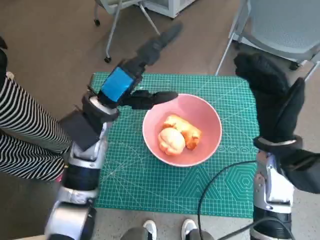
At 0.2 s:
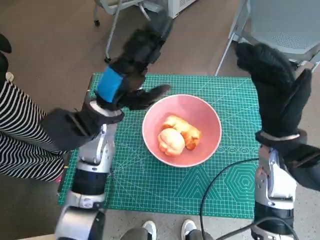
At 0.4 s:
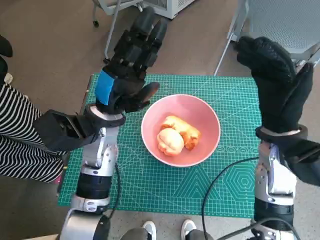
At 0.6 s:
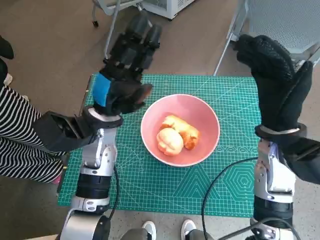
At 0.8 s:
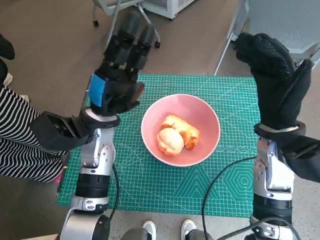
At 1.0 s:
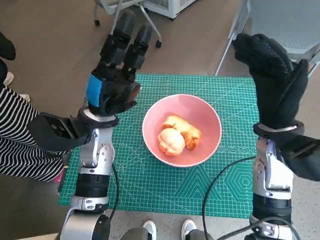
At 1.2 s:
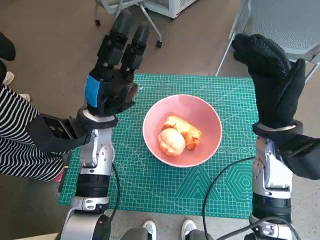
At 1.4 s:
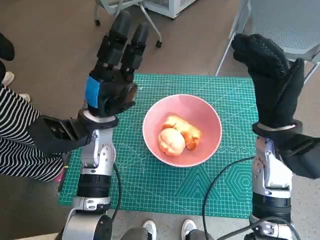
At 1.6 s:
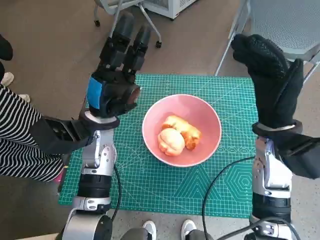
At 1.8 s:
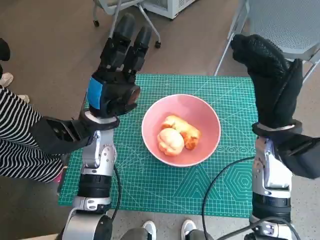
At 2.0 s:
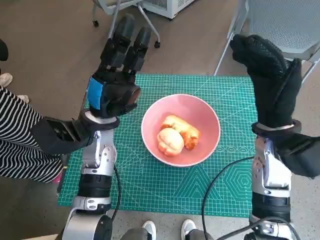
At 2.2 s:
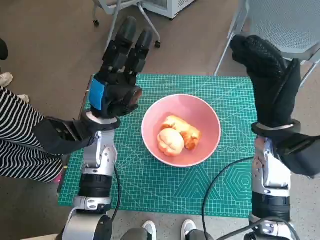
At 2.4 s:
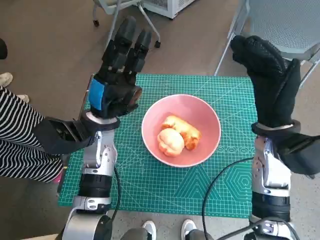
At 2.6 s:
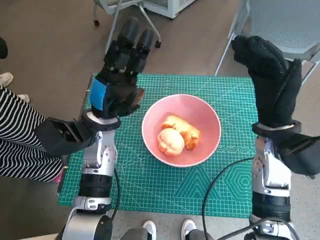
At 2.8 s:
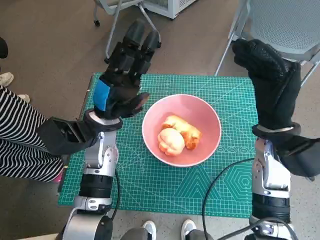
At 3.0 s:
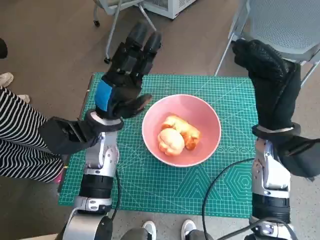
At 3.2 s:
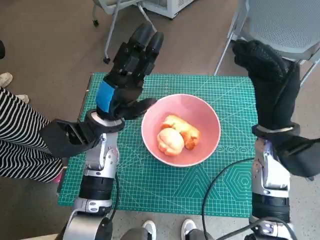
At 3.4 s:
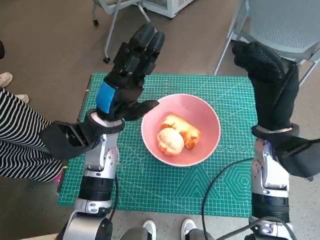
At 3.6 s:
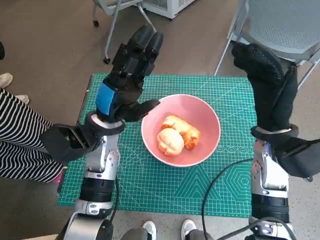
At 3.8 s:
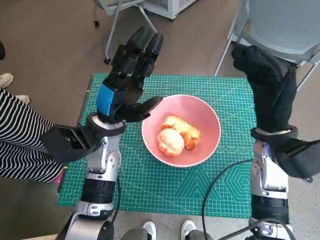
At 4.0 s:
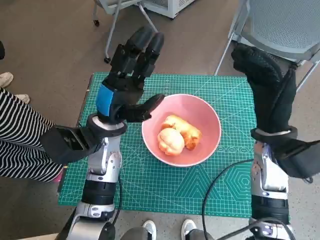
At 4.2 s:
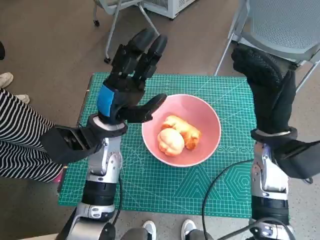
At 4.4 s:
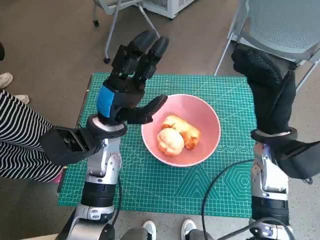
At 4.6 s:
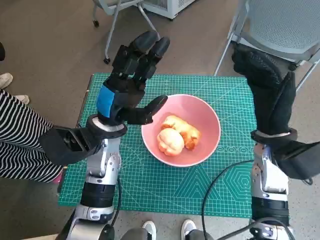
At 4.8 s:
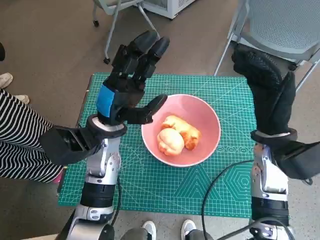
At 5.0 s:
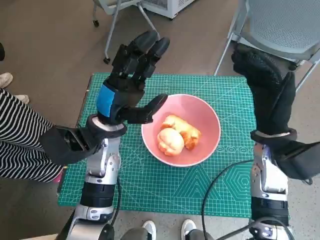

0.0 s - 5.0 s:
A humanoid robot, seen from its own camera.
Task of the whole recording: Push the bowl into the center of the table and put the bread into the bowl.
1.6 s - 3.4 s: The hands move only a little.
3.4 s - 5.0 s: The two hands keep their place.

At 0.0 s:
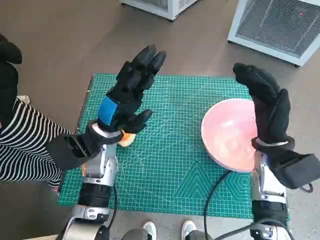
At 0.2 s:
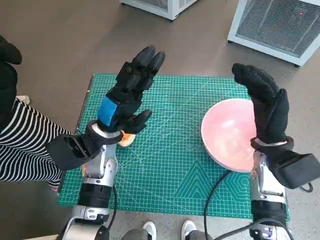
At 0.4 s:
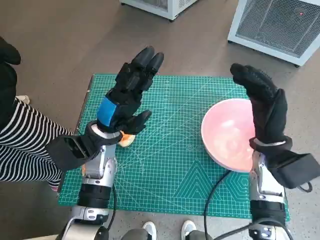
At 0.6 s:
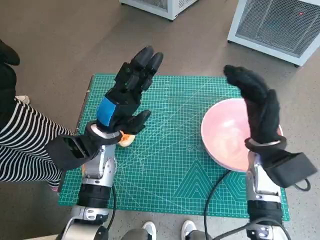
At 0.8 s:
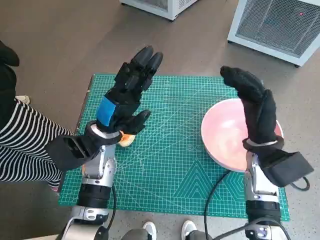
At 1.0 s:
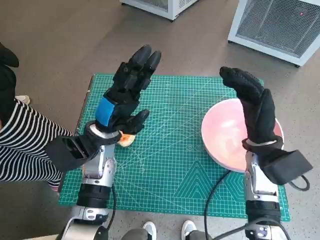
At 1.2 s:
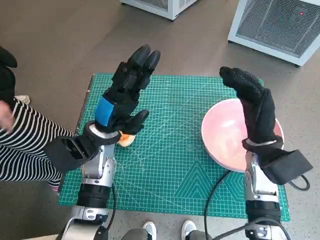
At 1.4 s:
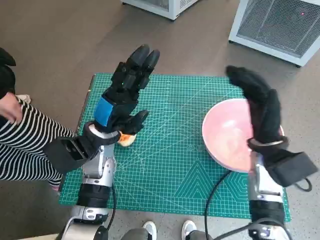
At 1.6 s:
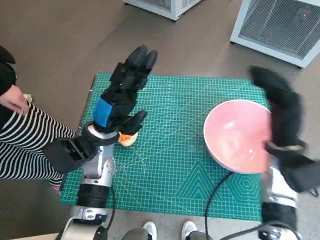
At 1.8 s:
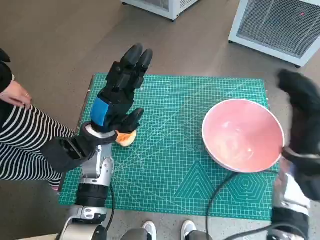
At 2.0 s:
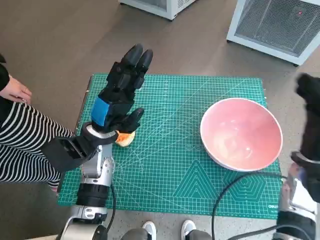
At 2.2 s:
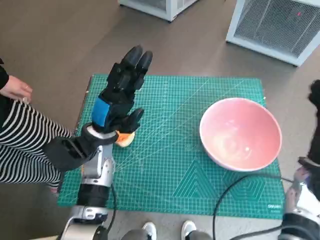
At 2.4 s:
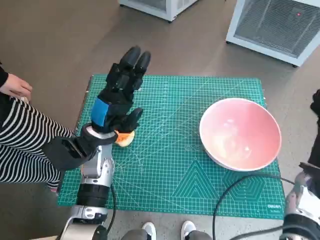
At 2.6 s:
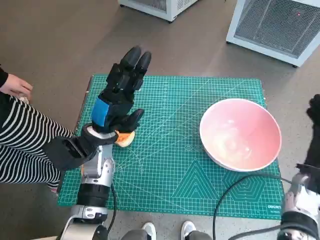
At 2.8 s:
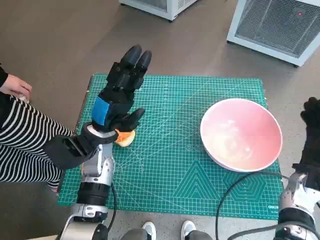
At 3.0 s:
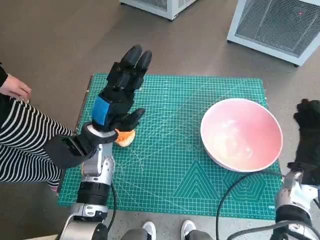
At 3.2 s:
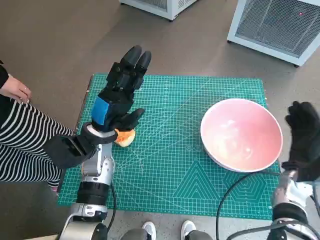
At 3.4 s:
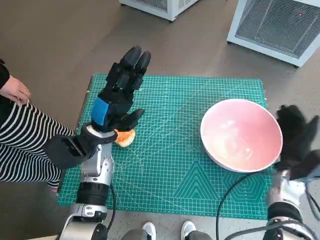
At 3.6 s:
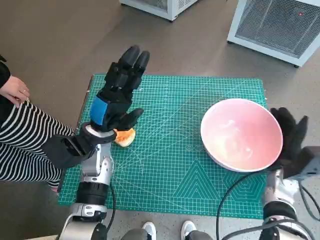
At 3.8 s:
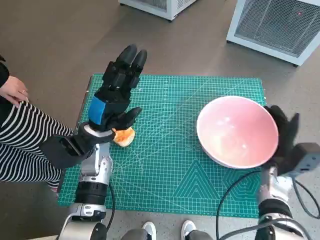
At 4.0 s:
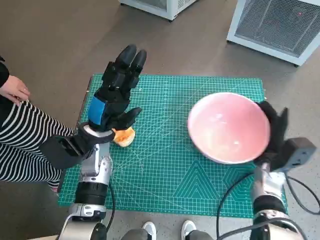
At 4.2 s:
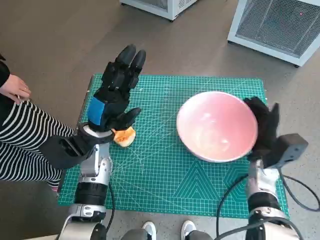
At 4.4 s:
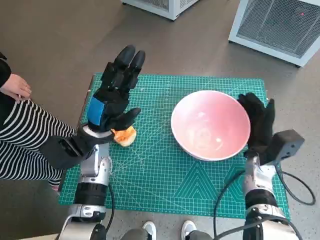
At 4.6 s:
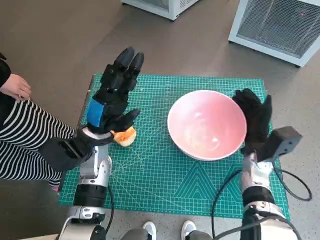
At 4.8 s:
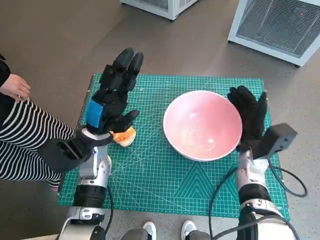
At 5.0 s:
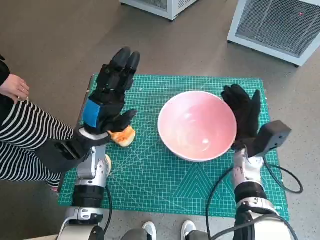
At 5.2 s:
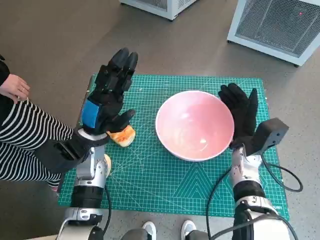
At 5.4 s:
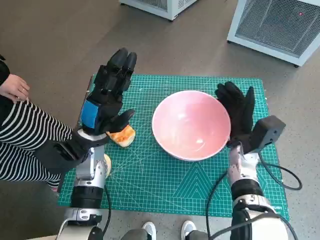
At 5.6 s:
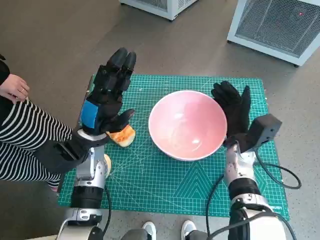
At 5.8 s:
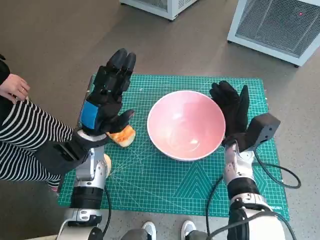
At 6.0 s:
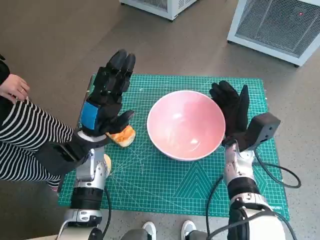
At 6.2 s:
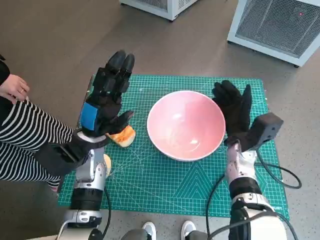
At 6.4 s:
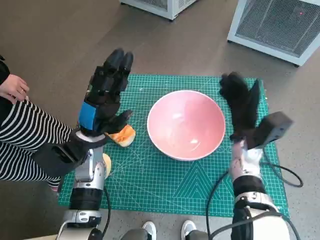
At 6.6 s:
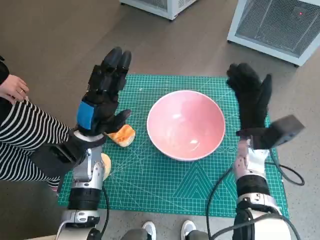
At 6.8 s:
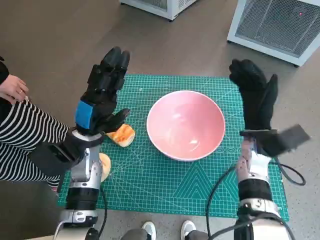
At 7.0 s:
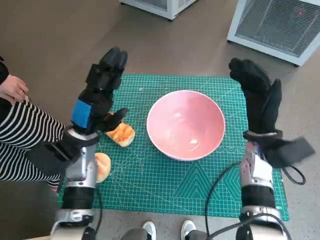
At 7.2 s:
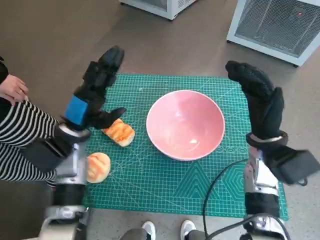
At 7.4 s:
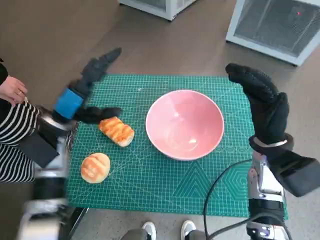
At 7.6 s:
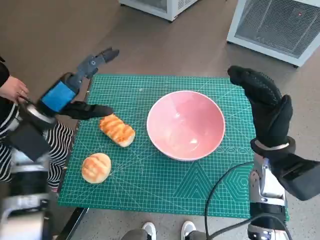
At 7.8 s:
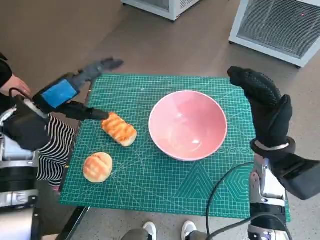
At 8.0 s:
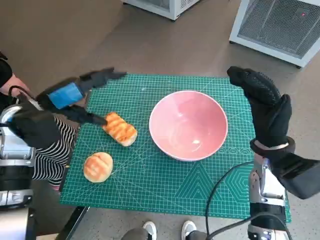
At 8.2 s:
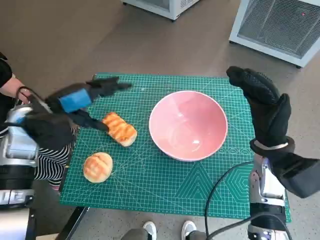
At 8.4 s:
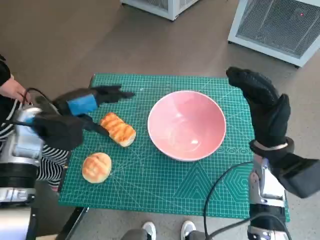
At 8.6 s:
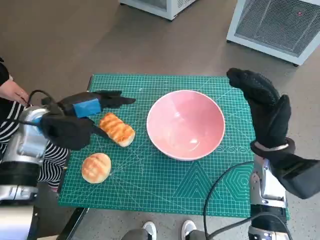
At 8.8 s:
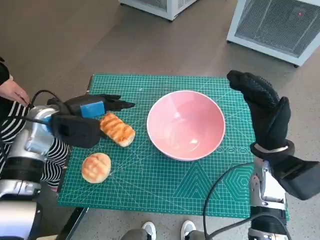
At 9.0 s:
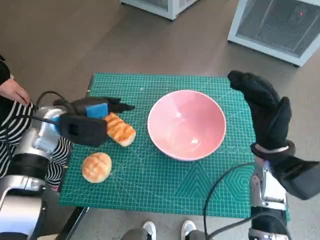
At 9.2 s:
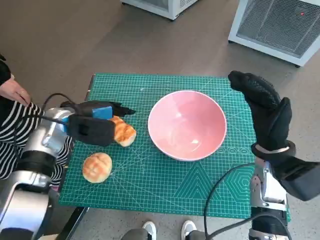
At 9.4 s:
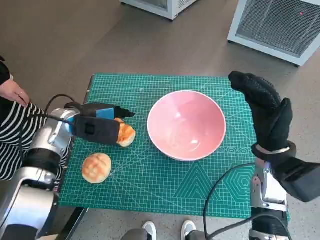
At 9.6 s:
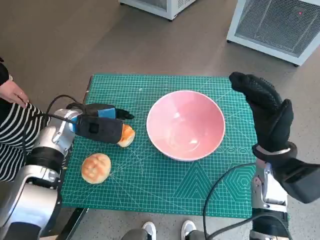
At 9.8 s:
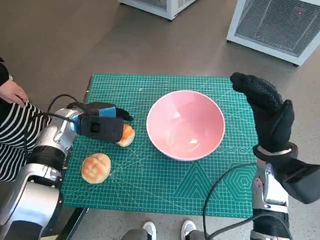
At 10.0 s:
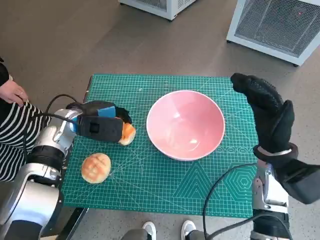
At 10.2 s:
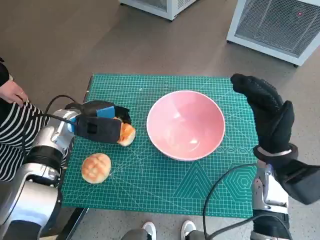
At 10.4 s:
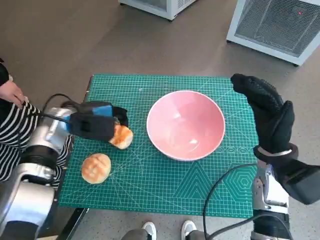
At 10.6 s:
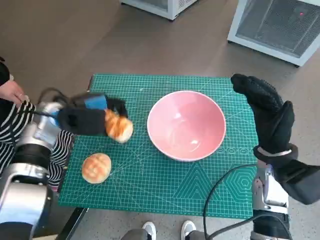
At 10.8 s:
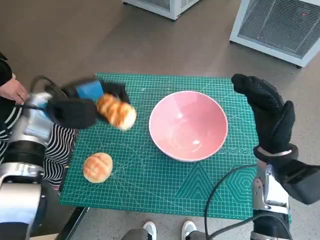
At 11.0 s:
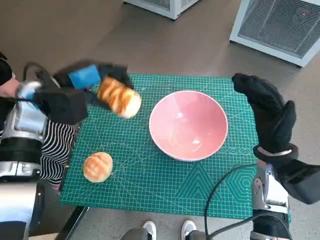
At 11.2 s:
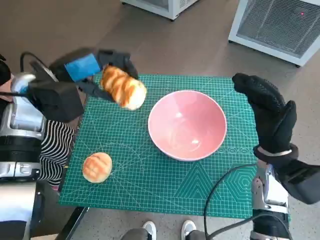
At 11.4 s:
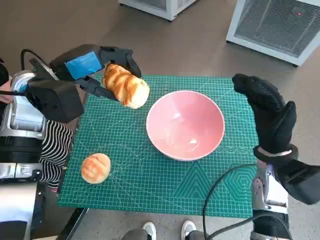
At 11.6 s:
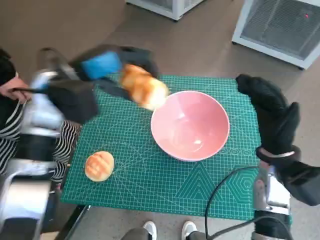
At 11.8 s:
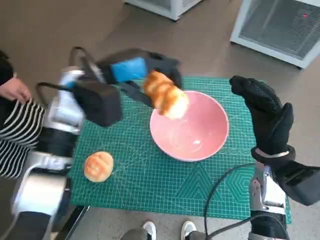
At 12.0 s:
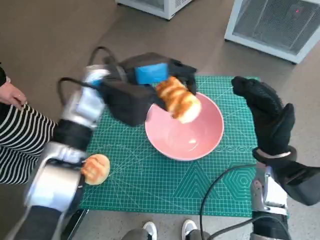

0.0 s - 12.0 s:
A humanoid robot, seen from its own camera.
Task of the whole recording: Push the bowl into the center of the table and put the bread into the bowl.
Step, 0.0 s - 6.2 s: Move the pink bowl to the center of table with right hand.
Step, 6.4 s - 10.0 s: Grasp the long bread with left hand.
1.6 s - 3.0 s: The right hand heads to the right and downward, covering roughly 10 cm.
3.0 s - 4.4 s: The right hand shifts approximately 10 cm to the left.
4.4 s - 6.0 s: The right hand is displaced to the left by some 5 cm.
6.0 s - 7.6 s: The right hand shifts roughly 10 cm upward. Meanwhile the left hand travels to the left and upward by about 10 cm.
9.0 s - 10.4 s: The hands make only small movements.
10.4 s - 12.0 s: The left hand heads upward and to the right, covering some 15 cm.

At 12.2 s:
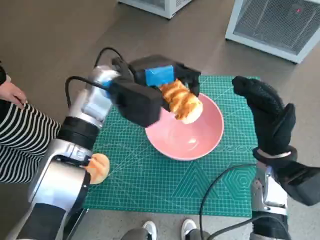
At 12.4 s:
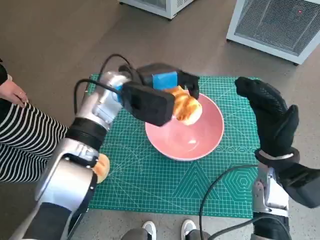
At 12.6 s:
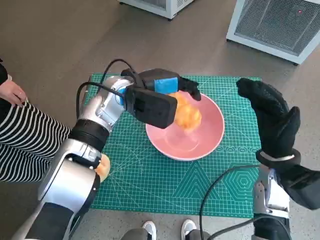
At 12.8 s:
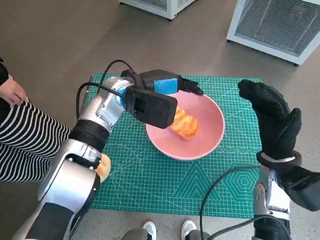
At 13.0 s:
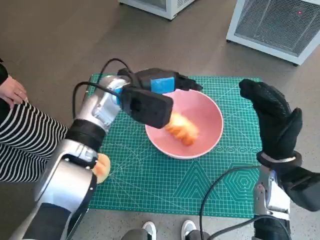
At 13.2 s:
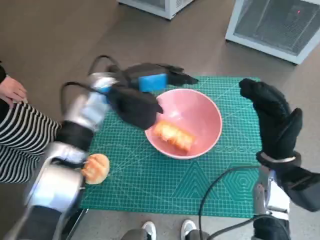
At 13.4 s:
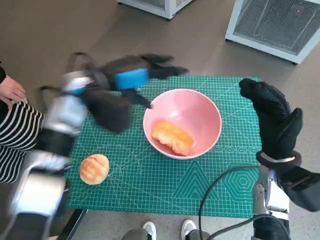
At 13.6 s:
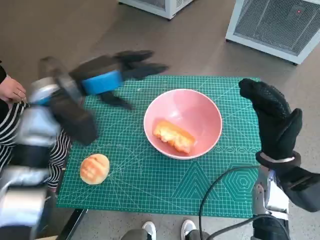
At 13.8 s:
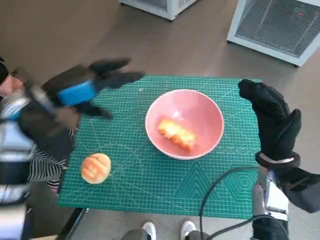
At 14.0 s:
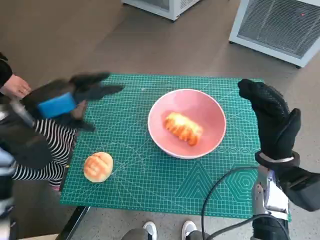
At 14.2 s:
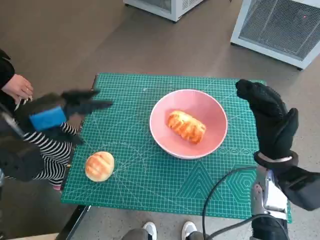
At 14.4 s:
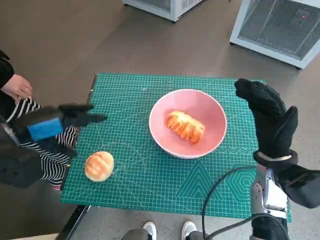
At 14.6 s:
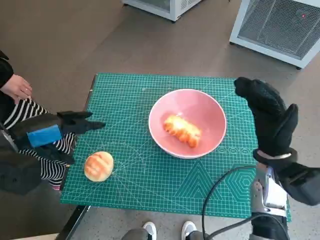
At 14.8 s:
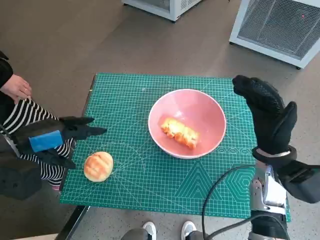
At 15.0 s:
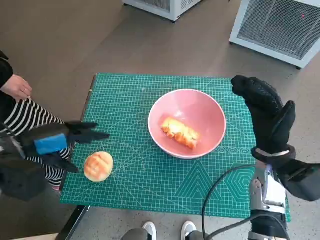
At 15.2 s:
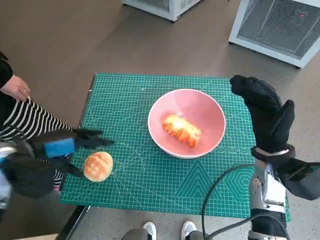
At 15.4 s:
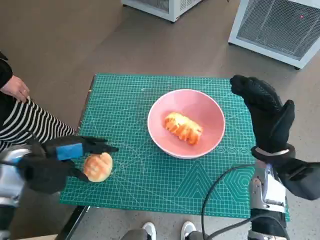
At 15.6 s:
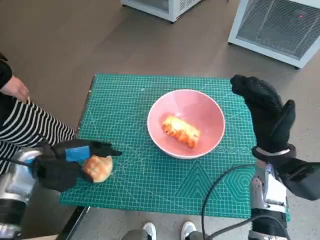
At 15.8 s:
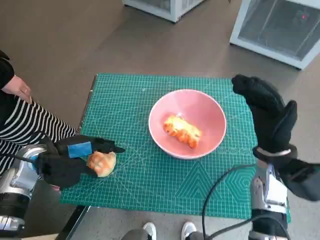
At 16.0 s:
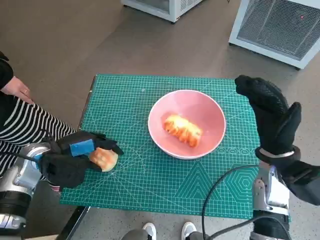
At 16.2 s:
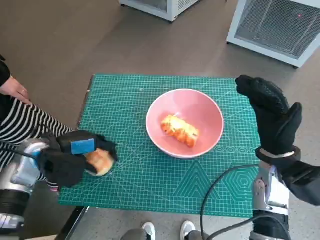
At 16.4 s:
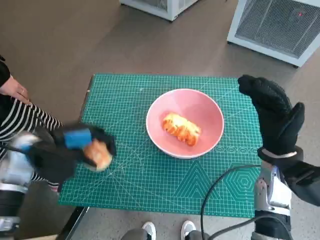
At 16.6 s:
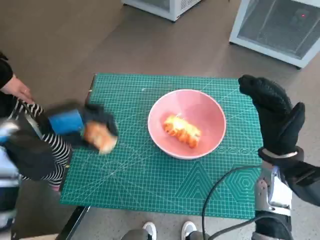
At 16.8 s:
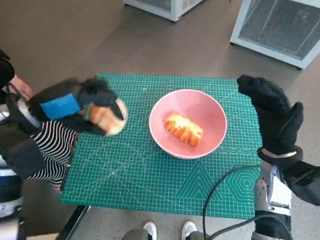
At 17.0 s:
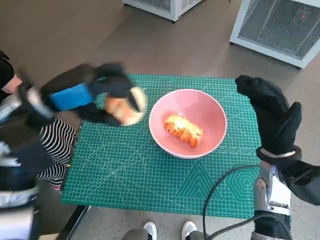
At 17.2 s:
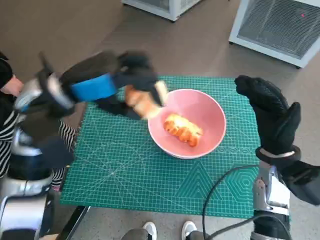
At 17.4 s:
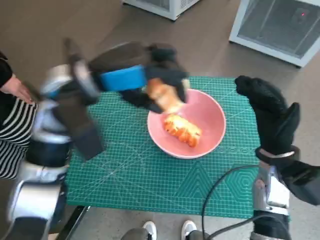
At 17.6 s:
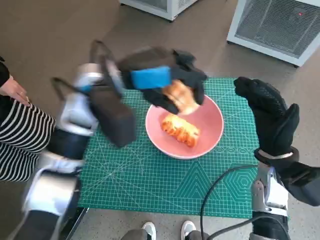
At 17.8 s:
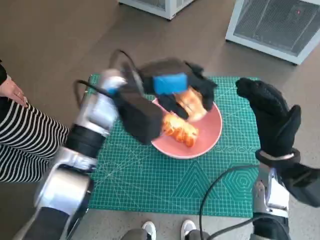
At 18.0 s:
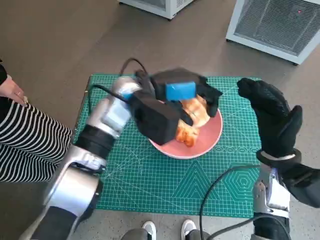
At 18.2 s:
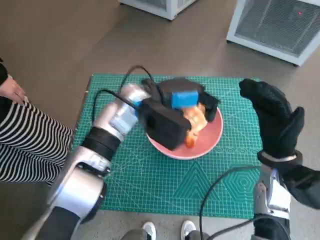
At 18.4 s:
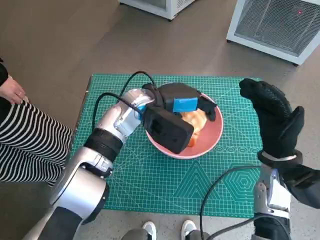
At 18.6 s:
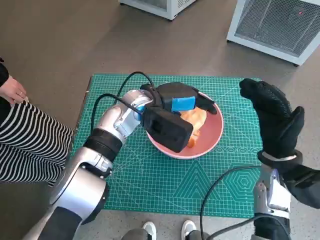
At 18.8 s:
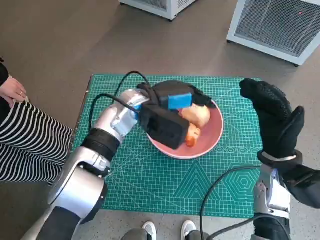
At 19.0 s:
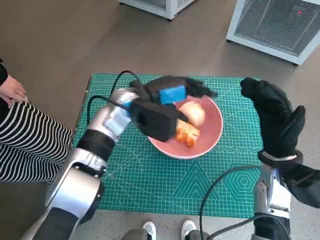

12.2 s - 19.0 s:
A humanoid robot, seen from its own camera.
Task of the whole recording: Push the bowl into the center of the table and put the bread into the bowl.
Step, 13.6 s - 16.2 s: Grasp the round bread with left hand.
12.2 s - 13.6 s: The left hand heads to the left, covering some 10 cm.
13.6 s - 15.0 s: The left hand is displaced to the left, backward and downward by roughly 15 cm.
15.0 s - 16.2 s: The left hand shifts approximately 5 cm downward.
16.2 s - 17.6 s: The left hand heads to the right and upward, covering about 20 cm.
17.6 s - 19.0 s: The left hand moves downward, about 10 cm.